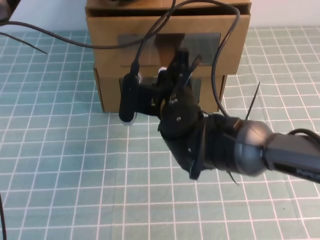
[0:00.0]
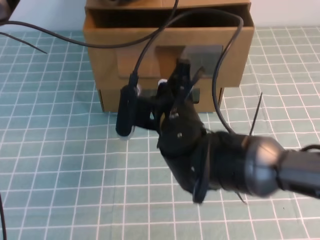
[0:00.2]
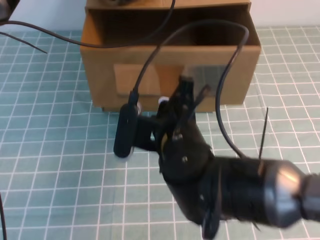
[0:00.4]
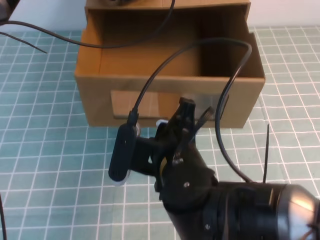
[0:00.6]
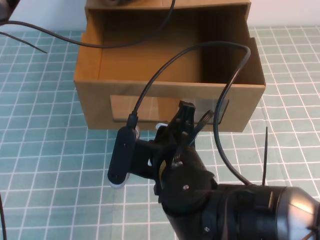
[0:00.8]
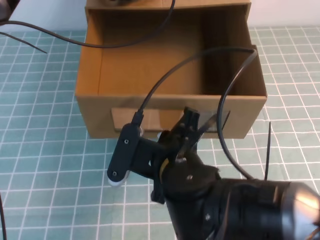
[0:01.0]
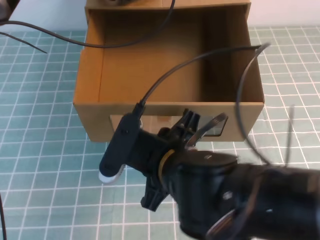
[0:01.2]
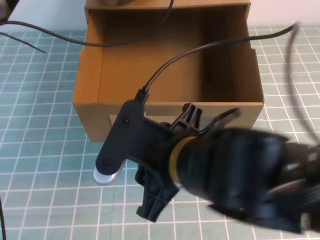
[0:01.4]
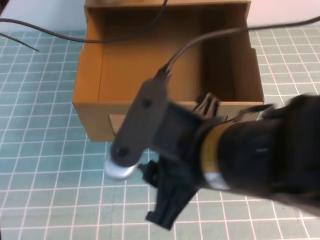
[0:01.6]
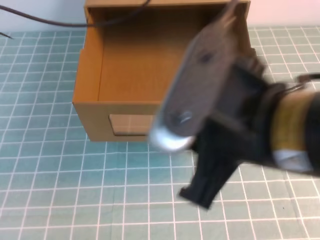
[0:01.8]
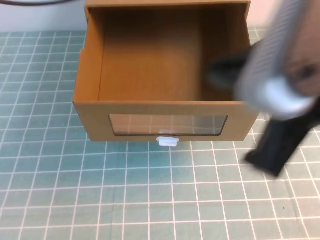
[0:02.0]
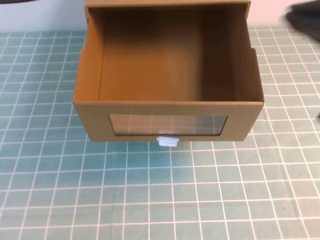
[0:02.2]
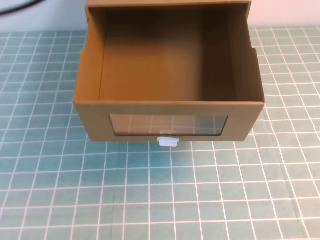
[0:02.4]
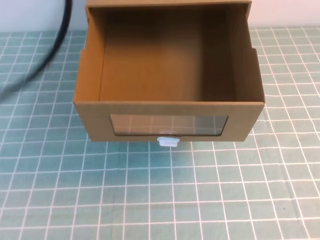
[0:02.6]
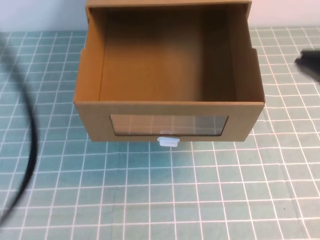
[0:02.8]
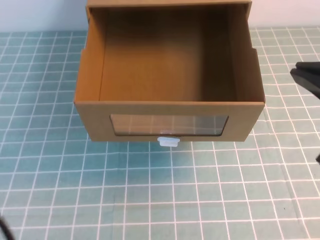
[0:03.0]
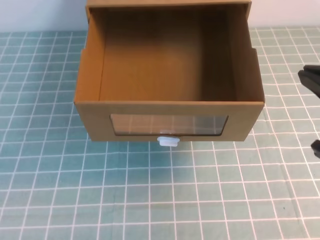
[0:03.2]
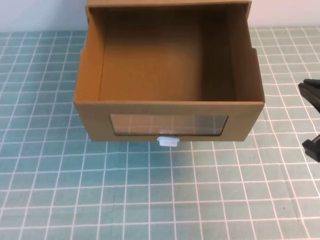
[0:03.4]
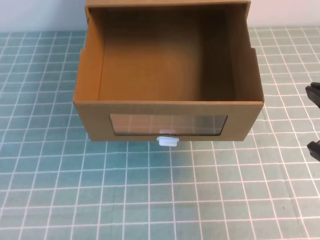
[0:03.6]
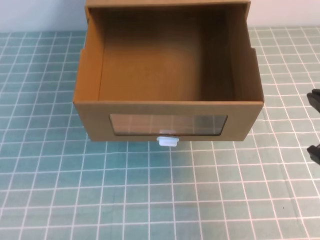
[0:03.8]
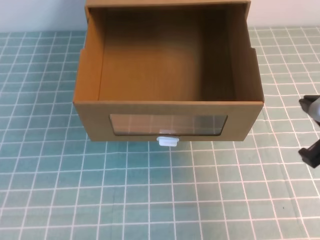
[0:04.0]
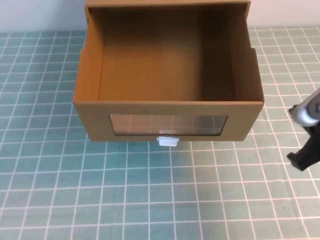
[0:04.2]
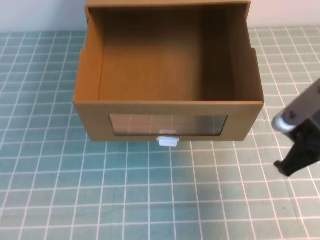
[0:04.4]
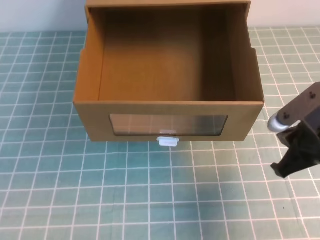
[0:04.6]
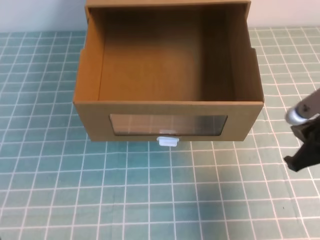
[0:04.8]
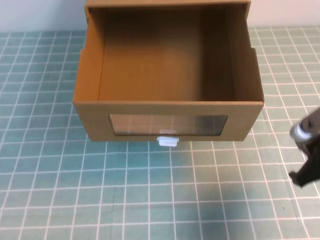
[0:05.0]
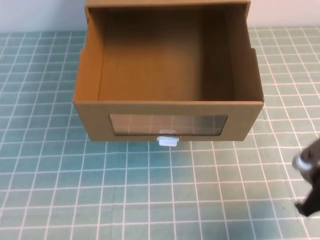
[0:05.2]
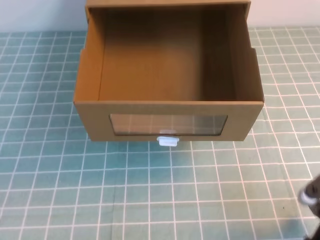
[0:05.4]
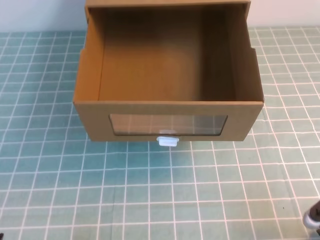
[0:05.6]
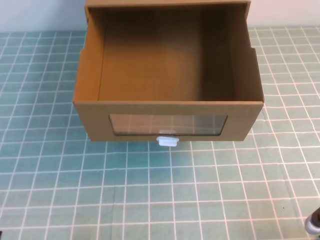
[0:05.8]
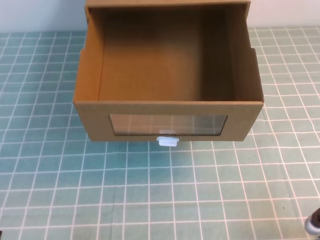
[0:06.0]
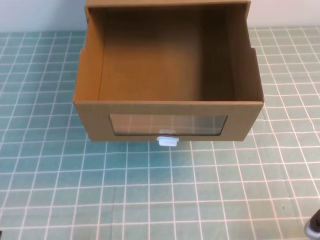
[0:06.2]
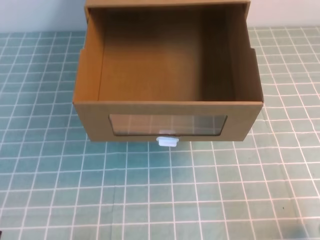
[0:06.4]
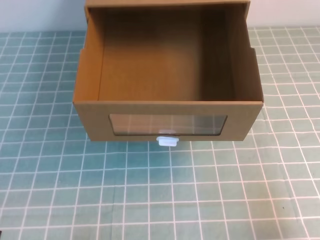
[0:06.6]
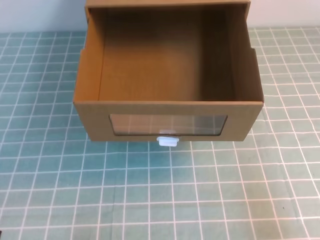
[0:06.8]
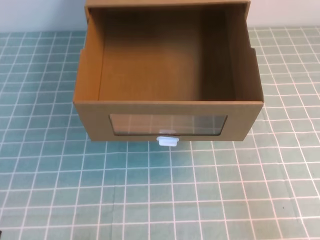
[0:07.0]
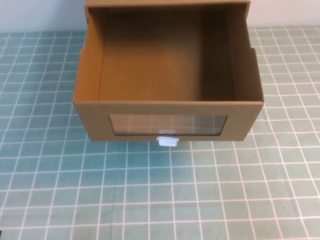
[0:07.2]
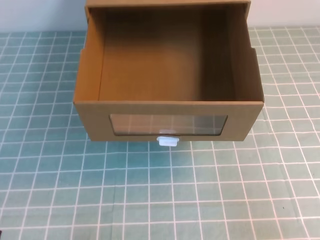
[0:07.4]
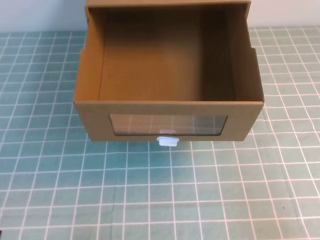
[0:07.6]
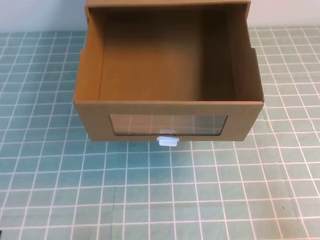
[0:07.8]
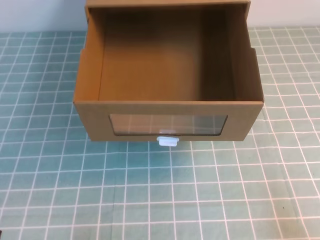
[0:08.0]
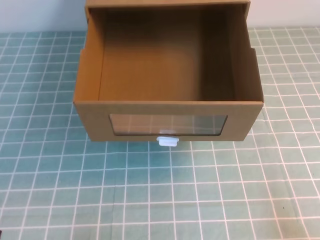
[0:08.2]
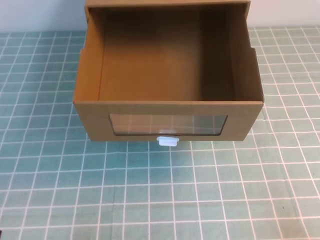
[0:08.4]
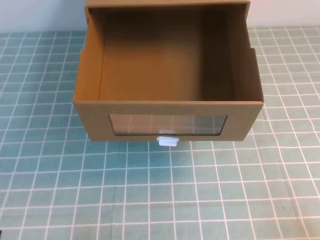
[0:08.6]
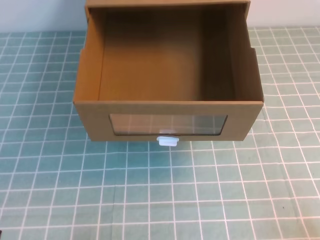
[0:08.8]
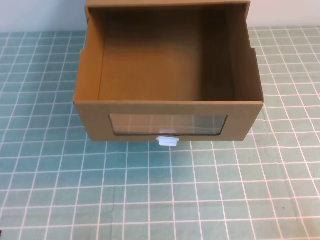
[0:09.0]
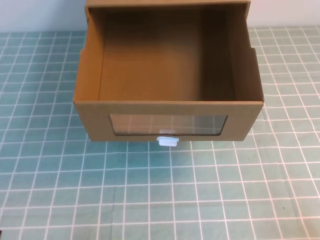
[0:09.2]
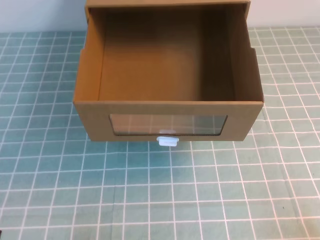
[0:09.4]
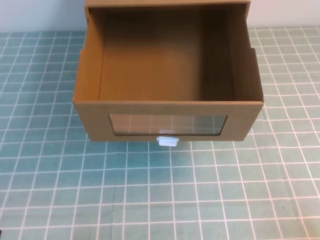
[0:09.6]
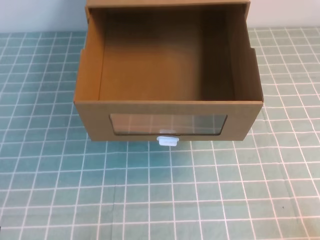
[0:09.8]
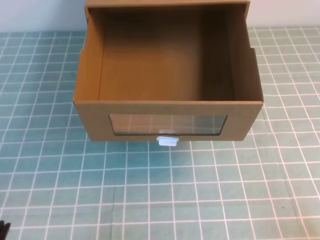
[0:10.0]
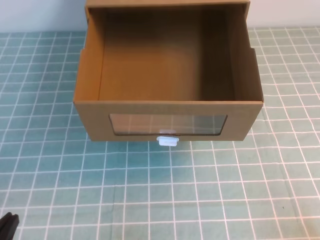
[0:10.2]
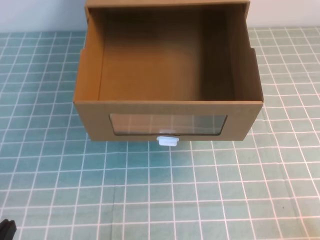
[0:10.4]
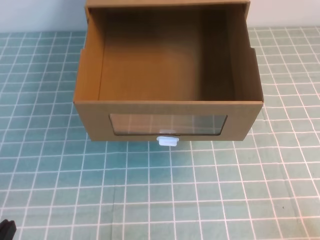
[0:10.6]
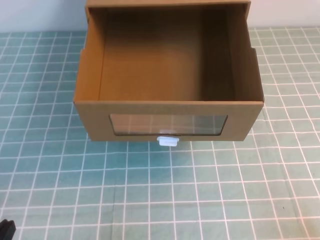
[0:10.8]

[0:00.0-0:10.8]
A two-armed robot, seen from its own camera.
Task of the whole recording: open the shoebox on the cyan tablecloth.
Step, 0:00.0 to 0:10.8: Open the shoe box.
0:00.0 to 0:01.6: The right gripper travels backward and upward by approximately 20 cm, and opens its fingers.
0:01.6 to 0:03.0: The right gripper moves to the right, some 15 cm, and closes; the left gripper is displaced backward by roughly 35 cm.
0:03.0 to 0:04.6: The left gripper shifts some 10 cm downward. Meanwhile the right gripper goes approximately 20 cm downward and forward.
0:04.6 to 0:06.2: The right gripper shifts roughly 15 cm downward, backward and to the right. The left gripper goes about 15 cm downward.
0:06.2 to 0:07.8: The right gripper goes some 10 cm backward and upward.
